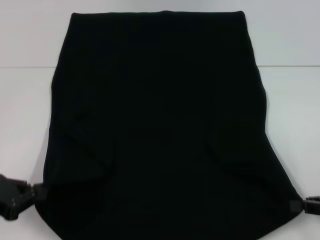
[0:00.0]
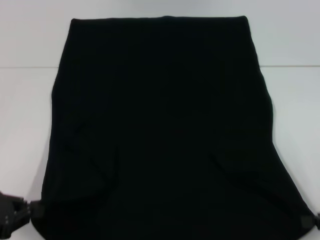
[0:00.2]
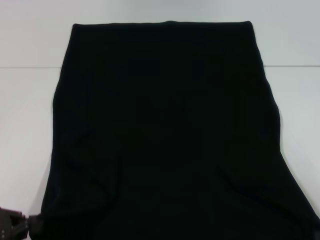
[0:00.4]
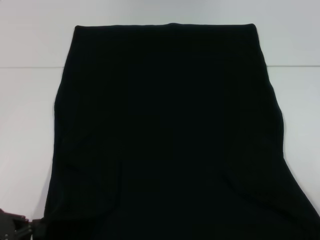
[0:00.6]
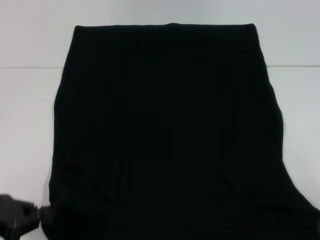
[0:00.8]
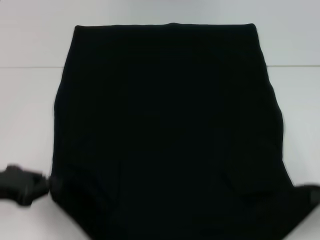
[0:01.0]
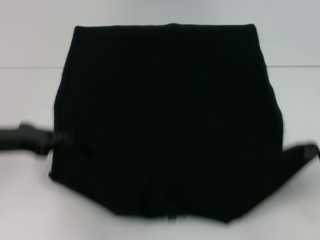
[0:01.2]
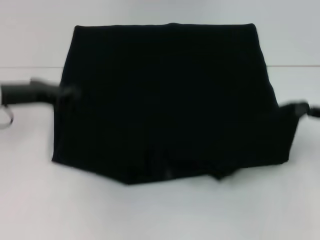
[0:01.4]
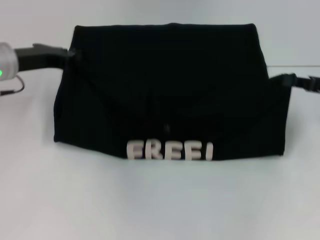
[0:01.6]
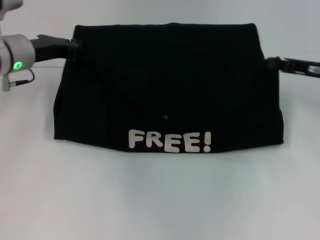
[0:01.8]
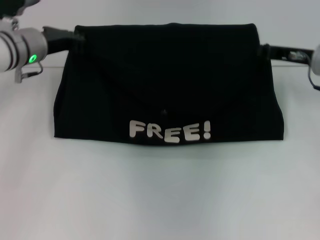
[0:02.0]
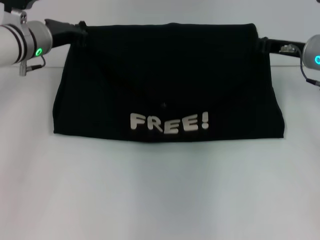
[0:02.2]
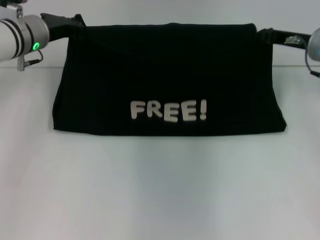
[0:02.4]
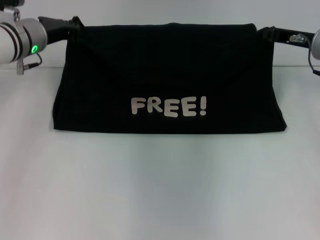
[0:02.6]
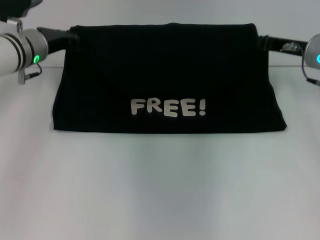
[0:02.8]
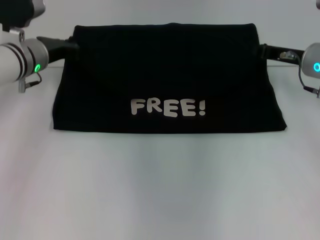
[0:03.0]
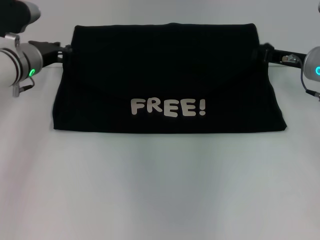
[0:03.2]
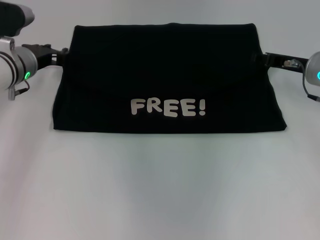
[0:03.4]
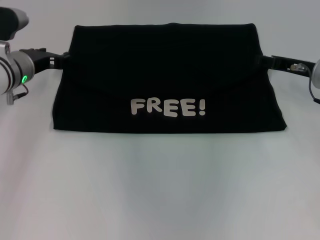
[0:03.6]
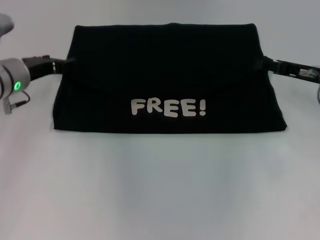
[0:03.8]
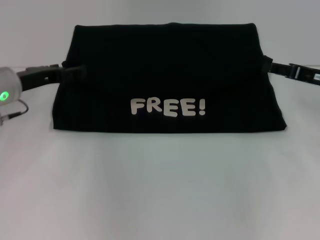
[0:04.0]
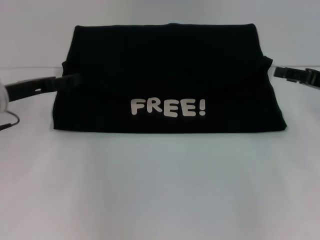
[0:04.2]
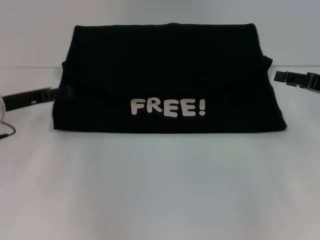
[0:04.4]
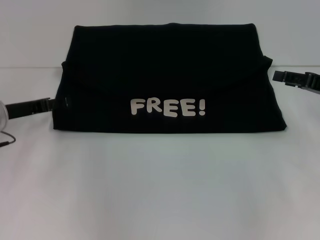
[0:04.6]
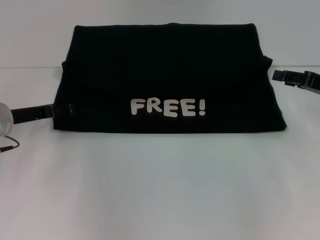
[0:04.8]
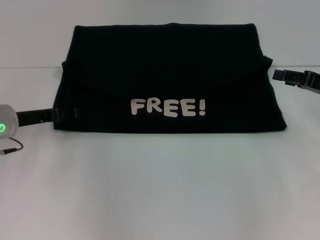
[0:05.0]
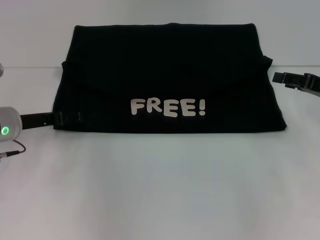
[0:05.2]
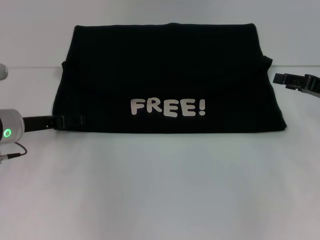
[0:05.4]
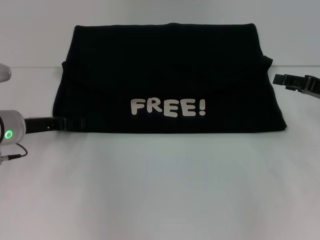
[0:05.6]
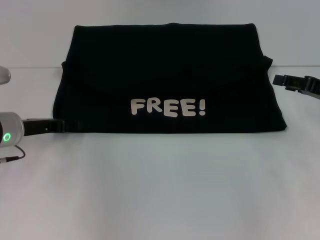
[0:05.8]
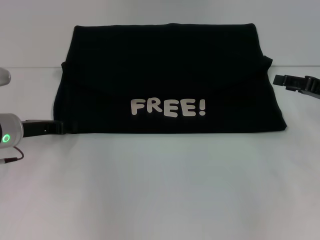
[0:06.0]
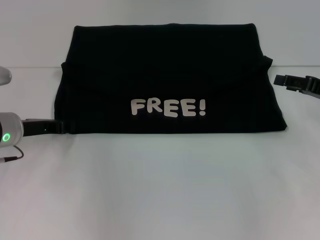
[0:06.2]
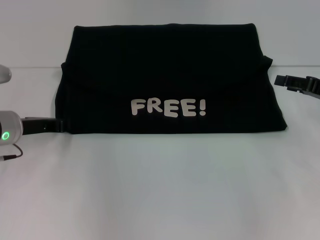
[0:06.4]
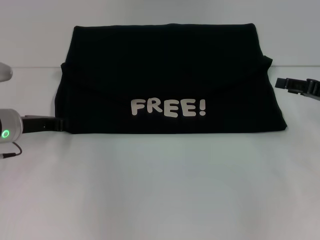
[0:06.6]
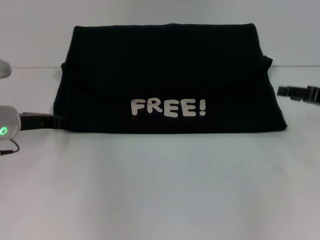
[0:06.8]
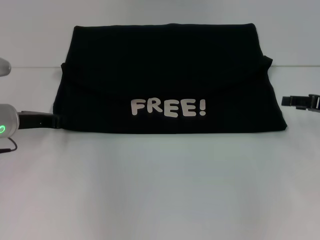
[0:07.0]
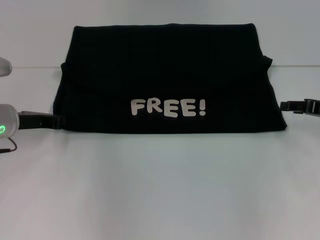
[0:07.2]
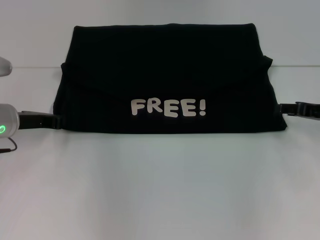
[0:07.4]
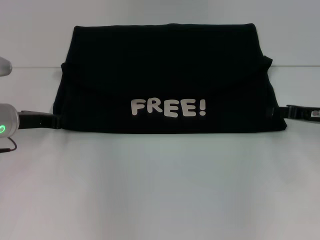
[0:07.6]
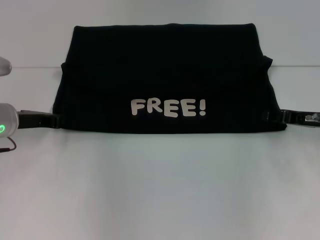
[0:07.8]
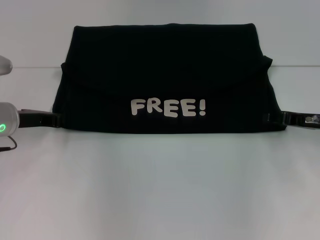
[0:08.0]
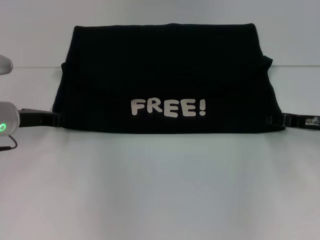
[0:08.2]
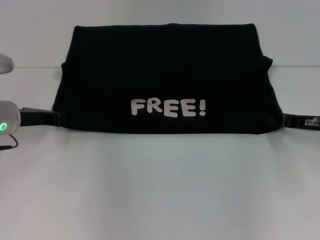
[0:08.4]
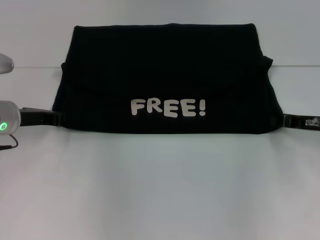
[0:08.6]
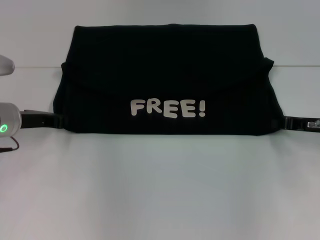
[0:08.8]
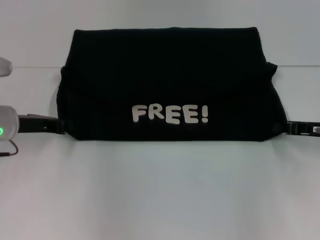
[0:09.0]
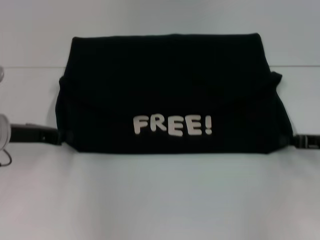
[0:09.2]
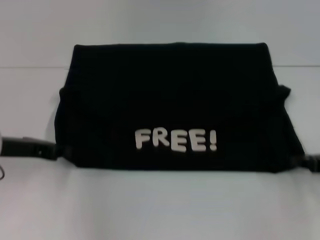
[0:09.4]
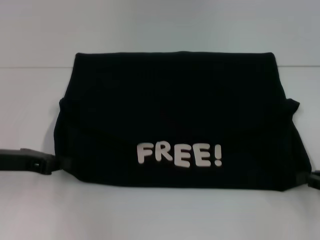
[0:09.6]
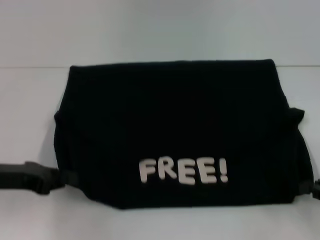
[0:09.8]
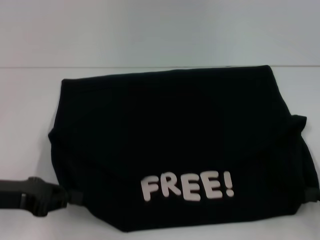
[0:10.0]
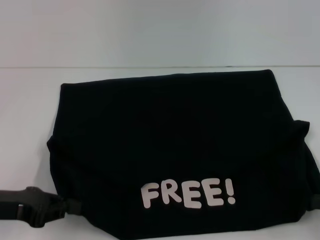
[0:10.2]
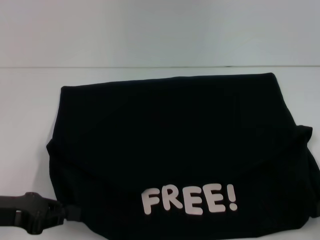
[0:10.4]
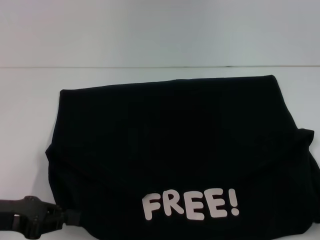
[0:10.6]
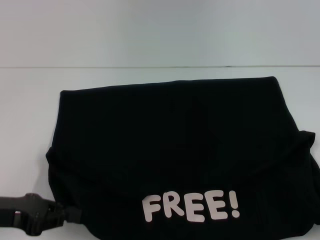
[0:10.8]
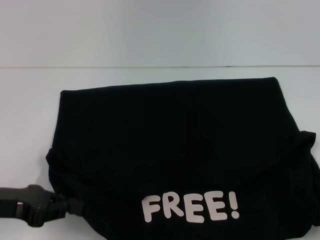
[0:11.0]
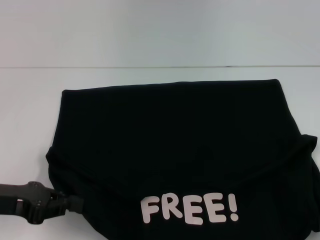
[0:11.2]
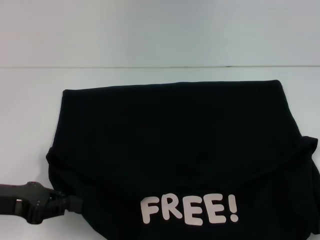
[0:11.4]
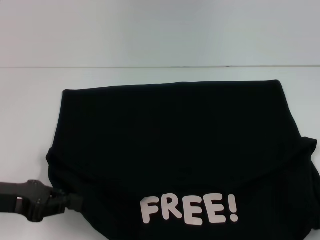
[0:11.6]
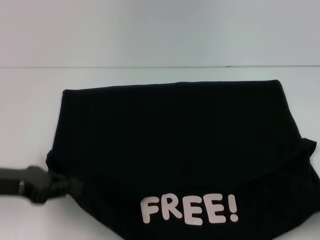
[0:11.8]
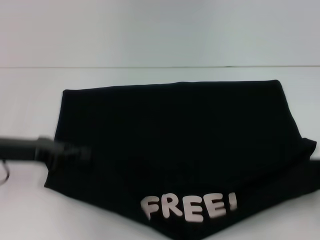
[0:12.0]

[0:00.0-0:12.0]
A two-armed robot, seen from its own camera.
Step, 0:00.0 to 0:03.8: Fold the clothes with your left hand.
Step, 0:00.0 to 0:03.8: Fold the clothes with your right hand.
Step, 0:04.0 to 0:10.8: Pull the clothes with your left hand.
Step, 0:04.0 to 0:10.8: Pull the clothes with your right hand.
0:00.0 to 0:01.6: The right gripper moves forward and upward, approximately 15 cm, while the left gripper travels forward by roughly 20 cm.
0:01.6 to 0:03.0: The left gripper shifts by about 5 cm, while the right gripper heads to the left and forward, covering roughly 10 cm.
0:03.0 to 0:04.4: The left gripper travels backward and to the left by about 10 cm, and opens up. Meanwhile the right gripper goes approximately 10 cm to the right and backward, and opens.
0:04.4 to 0:06.0: There are only small adjustments of the grippers.
0:06.0 to 0:07.6: The left gripper closes.
0:07.6 to 0:09.0: The right gripper closes.
0:09.0 to 0:10.4: The right gripper is displaced backward and to the right by about 15 cm; the left gripper moves backward, approximately 15 cm.
0:10.4 to 0:12.0: The left gripper is displaced forward by about 5 cm.

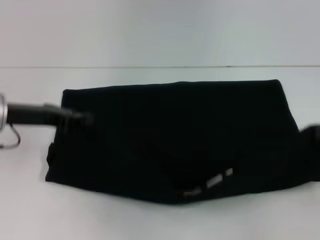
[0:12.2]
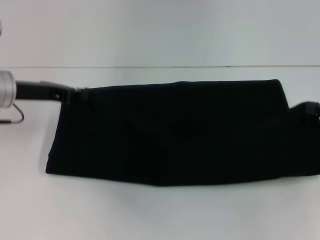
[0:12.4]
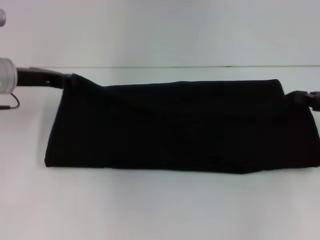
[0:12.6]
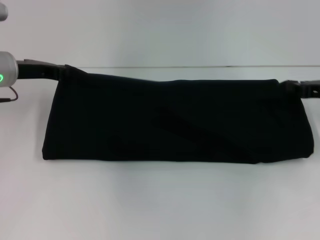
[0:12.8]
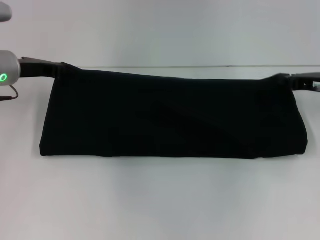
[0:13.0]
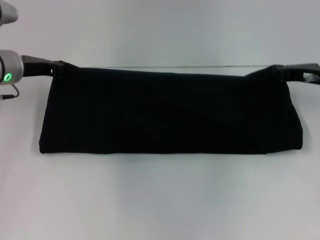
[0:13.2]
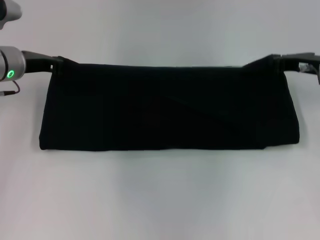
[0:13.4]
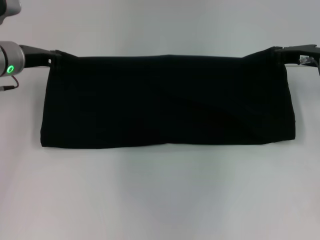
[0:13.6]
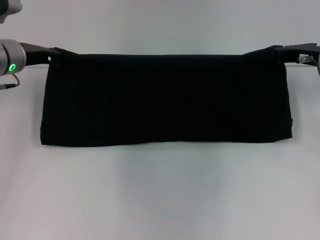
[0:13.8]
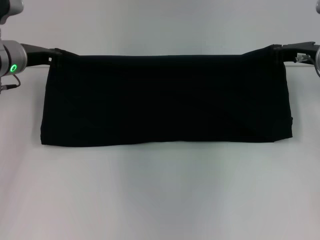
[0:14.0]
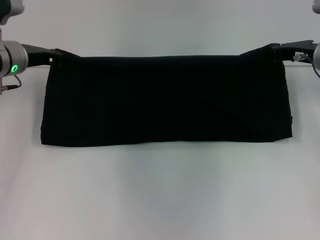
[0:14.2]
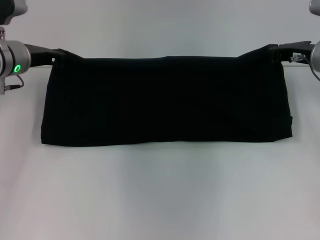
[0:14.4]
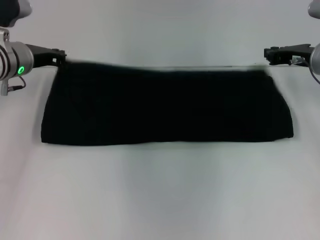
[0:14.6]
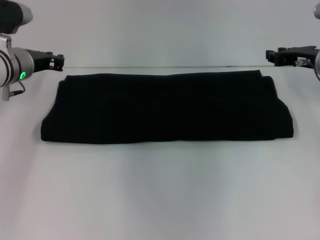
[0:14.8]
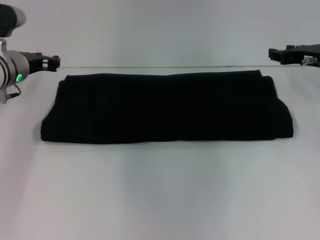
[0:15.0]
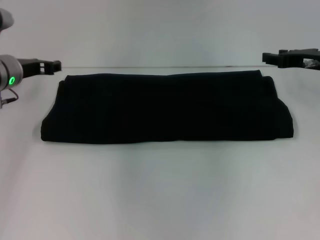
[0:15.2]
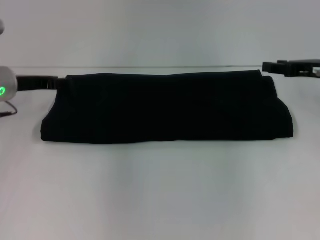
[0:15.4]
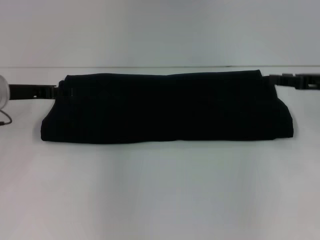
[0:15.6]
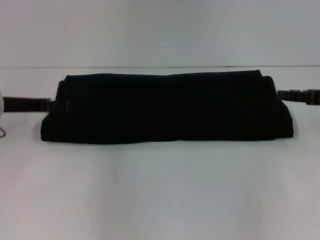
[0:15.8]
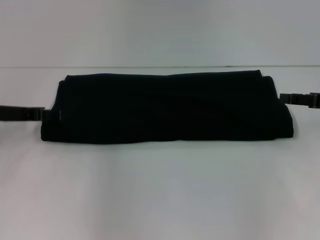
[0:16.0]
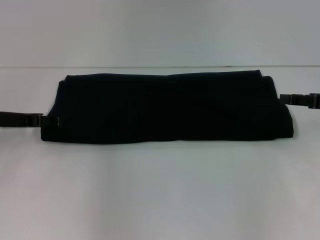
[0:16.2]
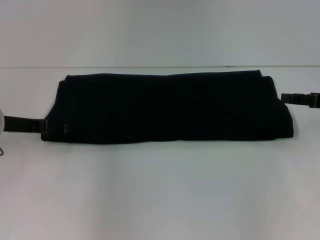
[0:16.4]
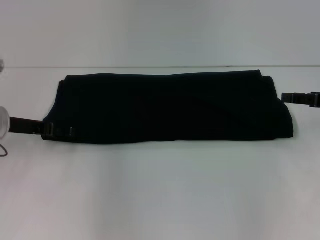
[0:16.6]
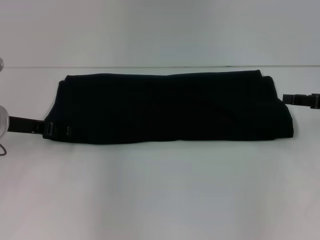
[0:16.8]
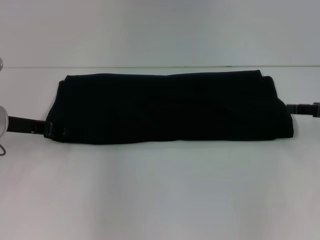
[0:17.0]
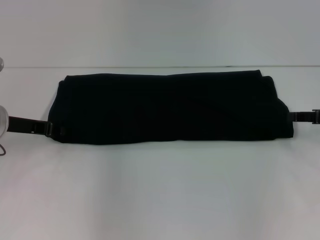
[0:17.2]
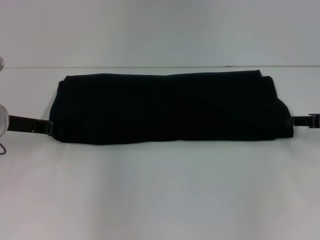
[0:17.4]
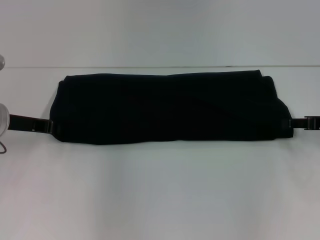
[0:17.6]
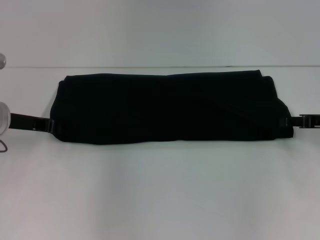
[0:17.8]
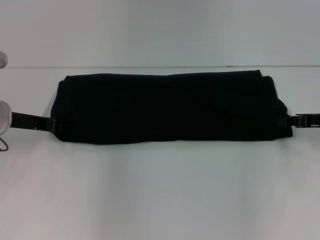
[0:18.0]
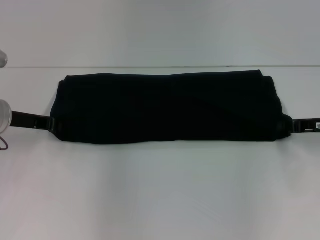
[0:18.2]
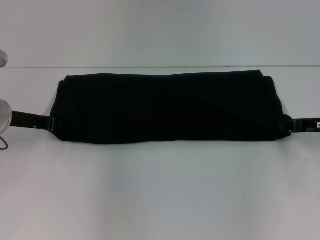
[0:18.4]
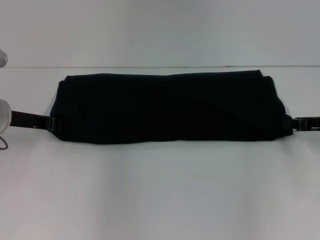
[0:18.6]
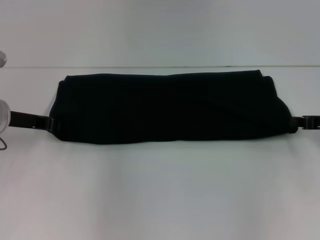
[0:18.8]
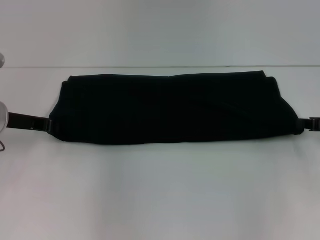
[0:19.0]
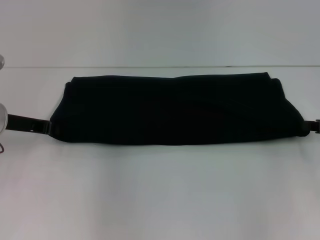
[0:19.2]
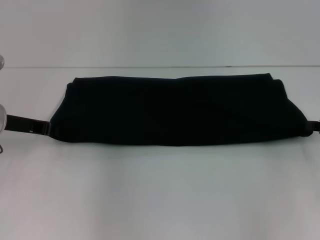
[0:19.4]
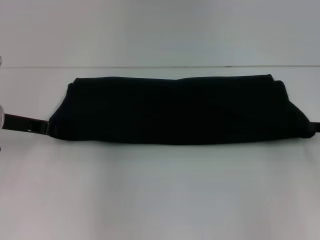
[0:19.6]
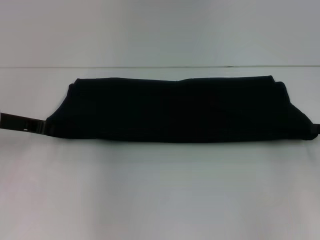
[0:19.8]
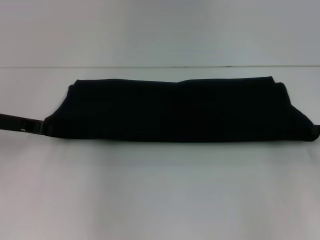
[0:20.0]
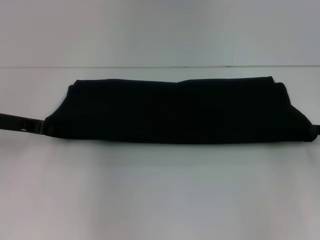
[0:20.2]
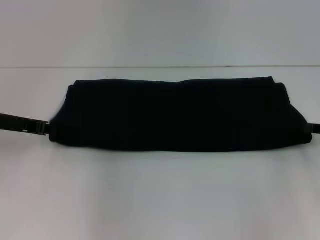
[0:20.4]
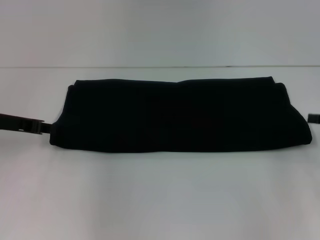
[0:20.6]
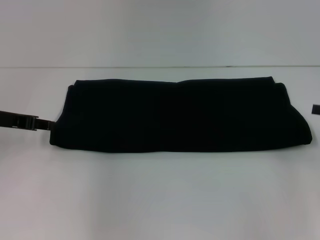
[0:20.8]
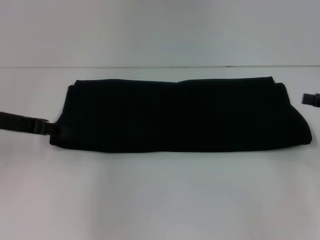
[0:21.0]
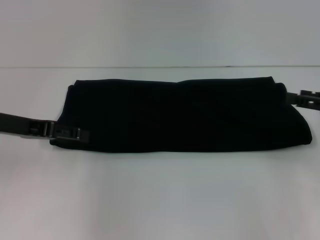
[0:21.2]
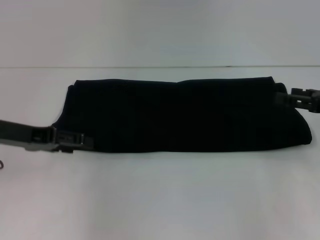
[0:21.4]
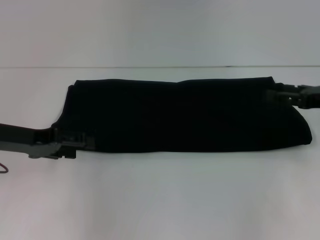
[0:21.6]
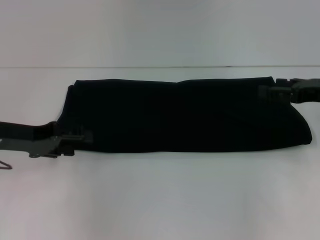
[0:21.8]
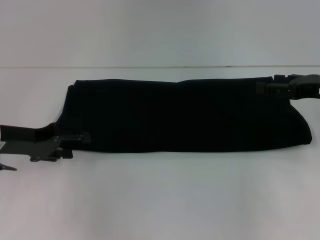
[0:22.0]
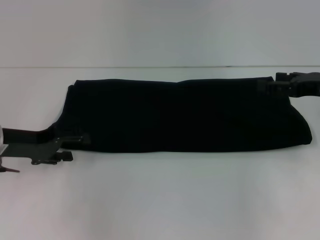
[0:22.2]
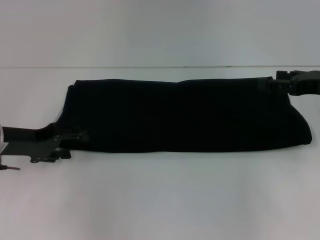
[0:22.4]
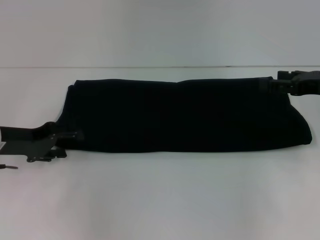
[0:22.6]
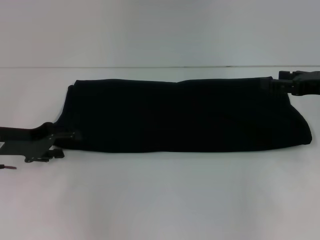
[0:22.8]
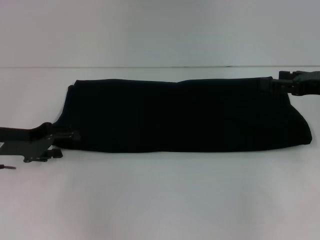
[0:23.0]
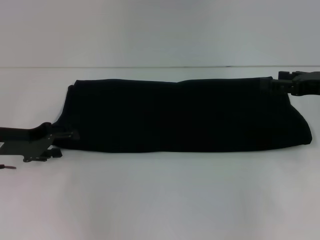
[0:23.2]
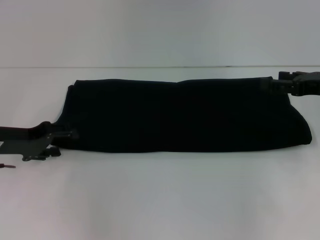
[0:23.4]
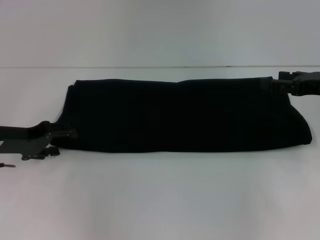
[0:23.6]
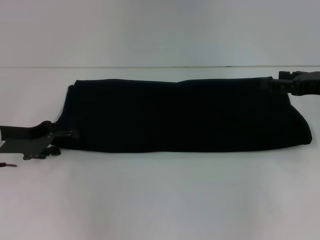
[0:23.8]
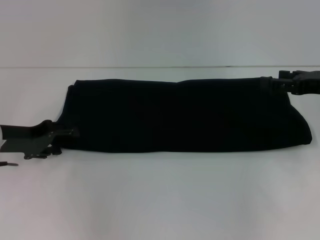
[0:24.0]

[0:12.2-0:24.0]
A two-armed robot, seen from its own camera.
Step, 0:12.2 to 0:15.0: Fold the clothes with your right hand.
0:12.2 to 0:13.6: The right gripper goes some 20 cm forward and to the left. The left gripper travels forward by approximately 10 cm.
0:13.6 to 0:15.2: The left gripper opens. The right gripper opens its fingers.
0:15.2 to 0:16.6: The left gripper goes about 10 cm backward, and opens up. Meanwhile the right gripper goes some 10 cm backward and to the right.
0:16.6 to 0:18.2: The left gripper closes up.
0:18.2 to 0:19.6: The right gripper shifts by some 5 cm.
0:19.6 to 0:21.0: The left gripper opens up. Meanwhile the right gripper opens.
0:21.0 to 0:22.6: The left gripper goes roughly 5 cm downward, while the right gripper moves to the left and forward, approximately 10 cm.
0:22.6 to 0:24.0: Both grippers stay put.
